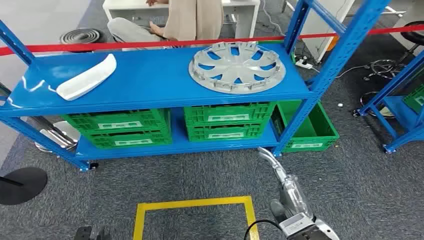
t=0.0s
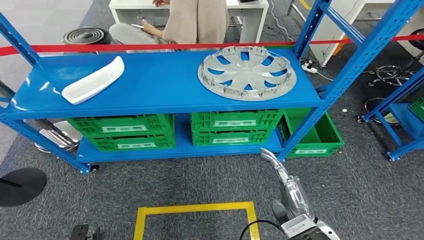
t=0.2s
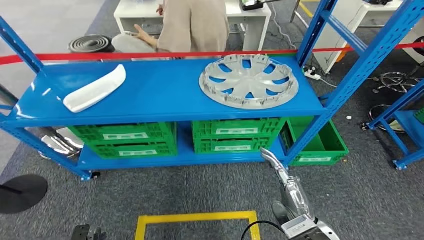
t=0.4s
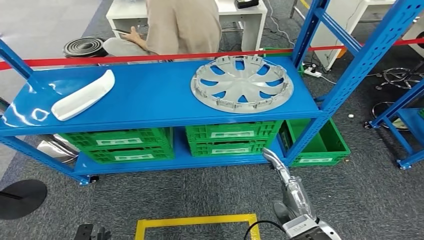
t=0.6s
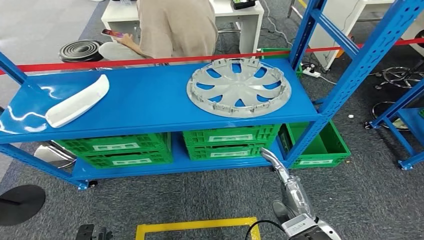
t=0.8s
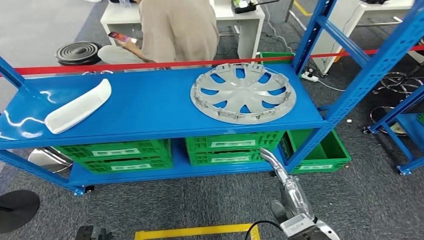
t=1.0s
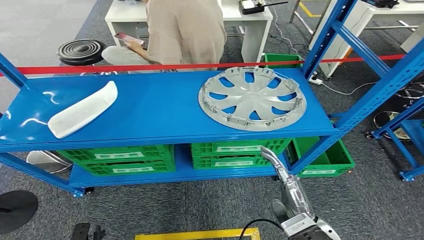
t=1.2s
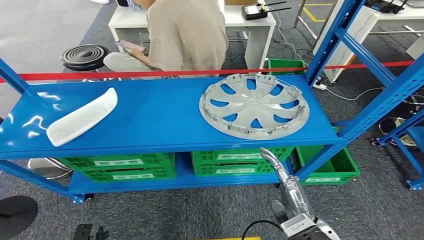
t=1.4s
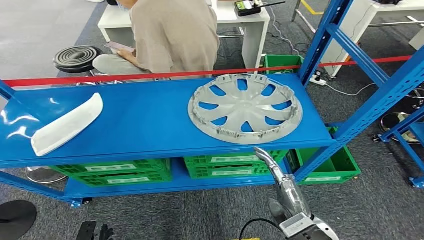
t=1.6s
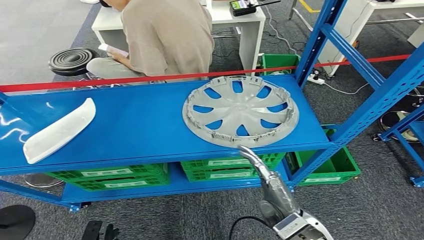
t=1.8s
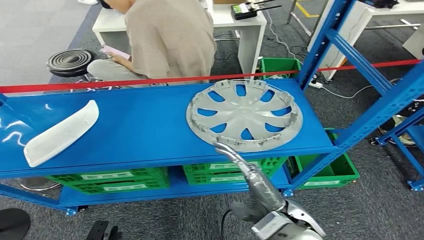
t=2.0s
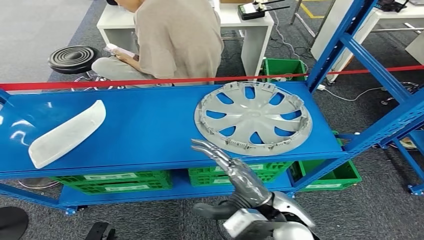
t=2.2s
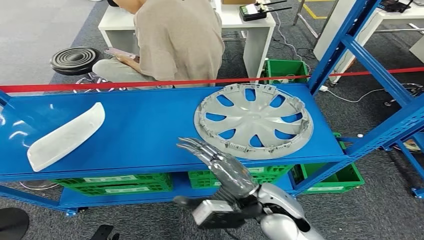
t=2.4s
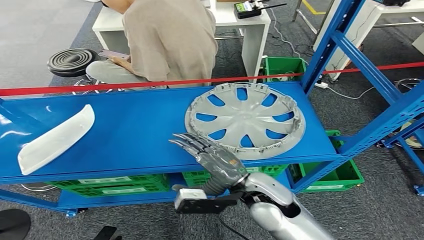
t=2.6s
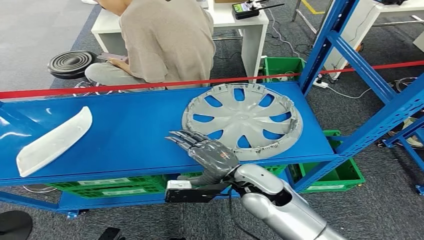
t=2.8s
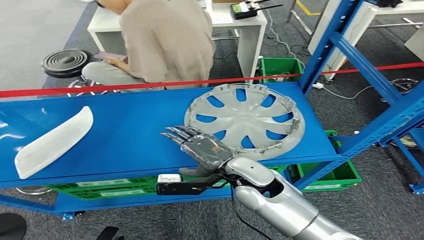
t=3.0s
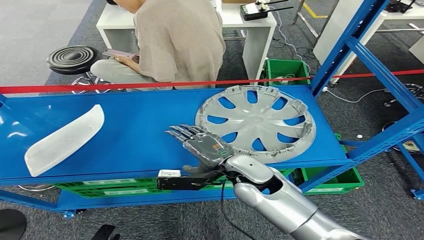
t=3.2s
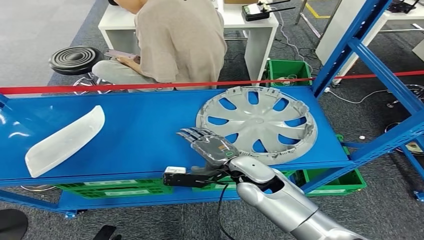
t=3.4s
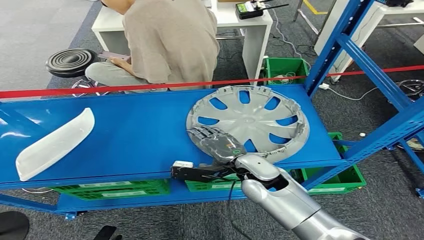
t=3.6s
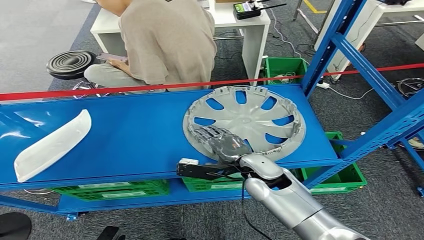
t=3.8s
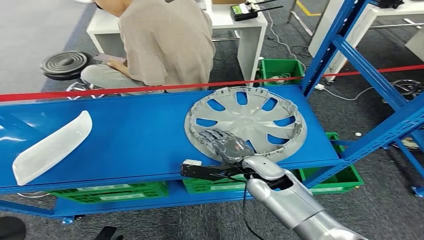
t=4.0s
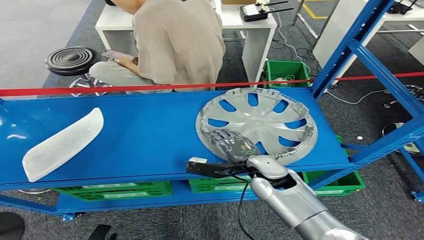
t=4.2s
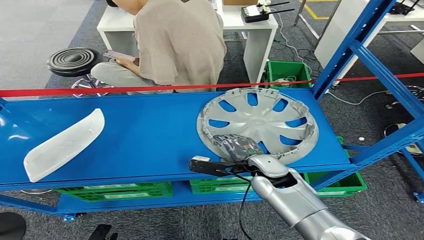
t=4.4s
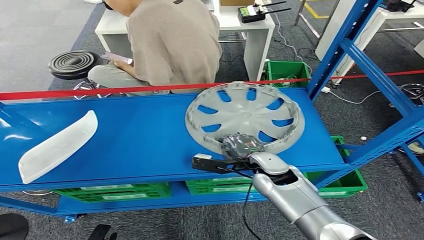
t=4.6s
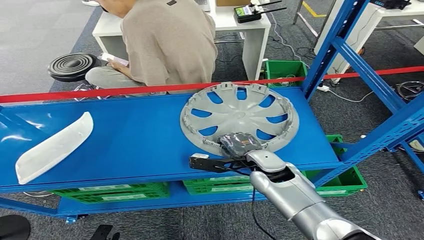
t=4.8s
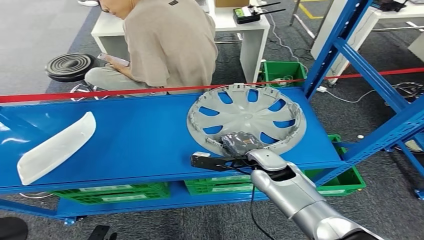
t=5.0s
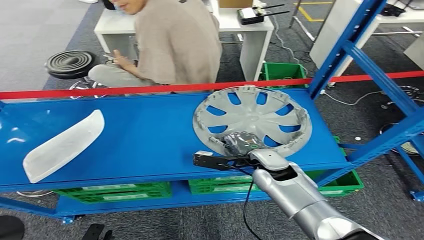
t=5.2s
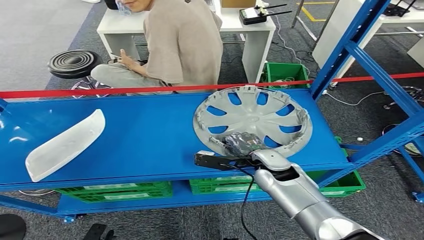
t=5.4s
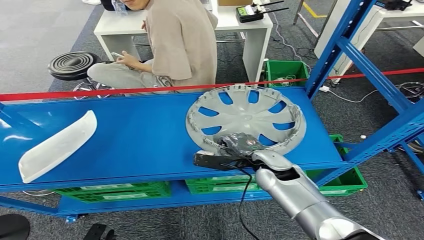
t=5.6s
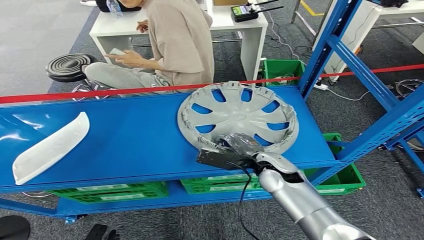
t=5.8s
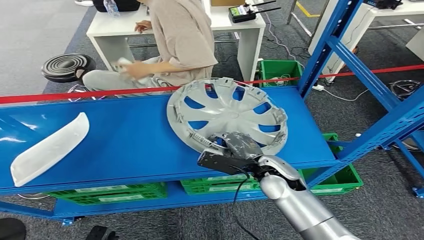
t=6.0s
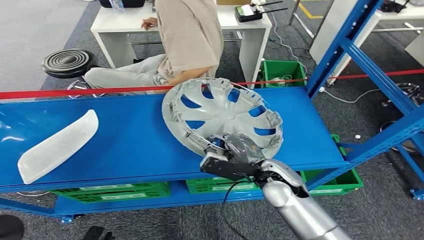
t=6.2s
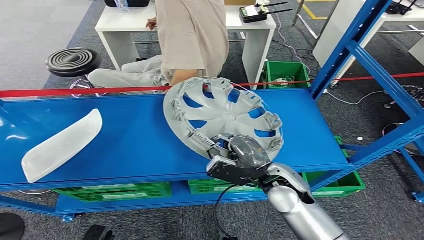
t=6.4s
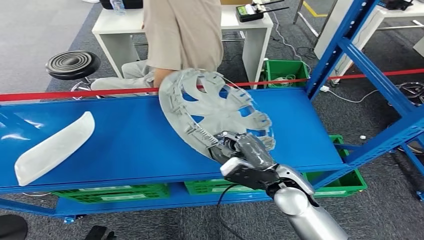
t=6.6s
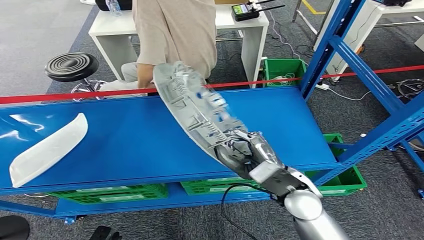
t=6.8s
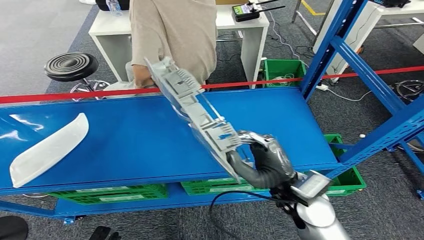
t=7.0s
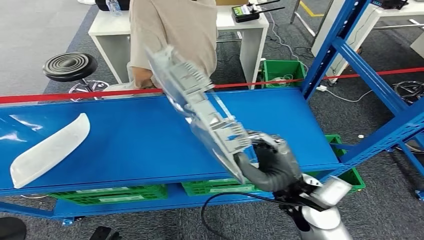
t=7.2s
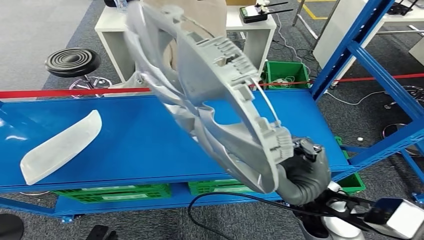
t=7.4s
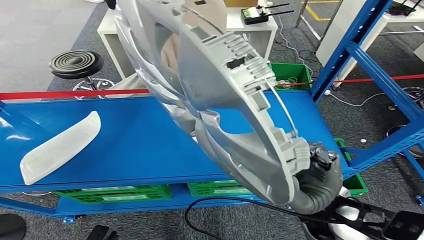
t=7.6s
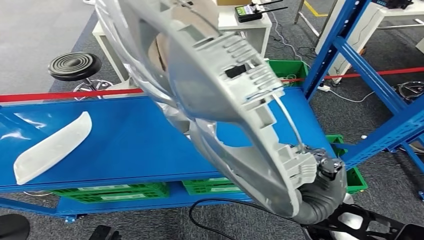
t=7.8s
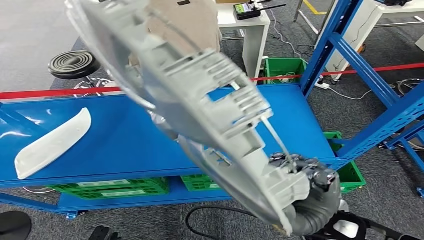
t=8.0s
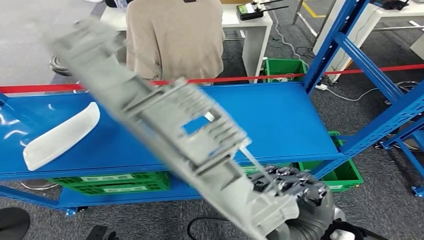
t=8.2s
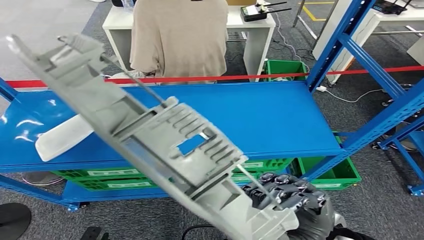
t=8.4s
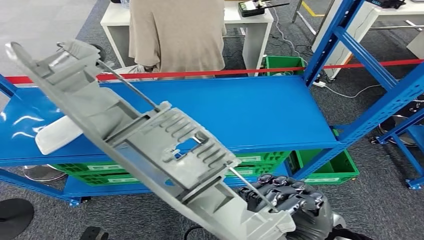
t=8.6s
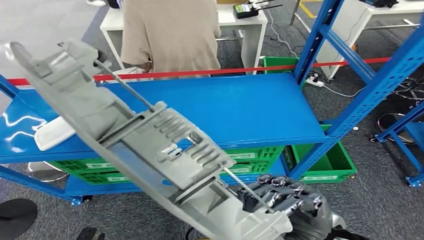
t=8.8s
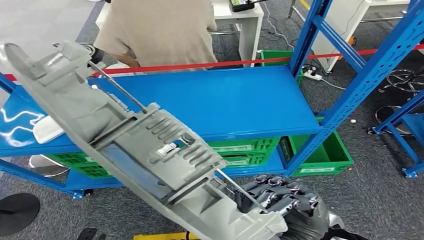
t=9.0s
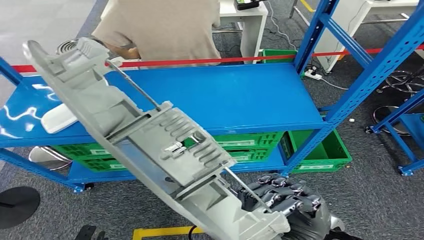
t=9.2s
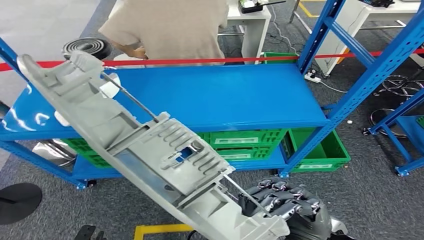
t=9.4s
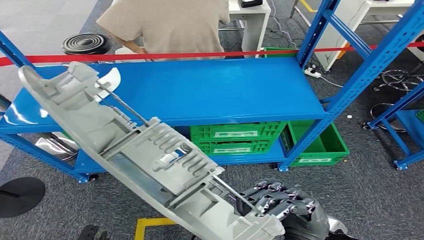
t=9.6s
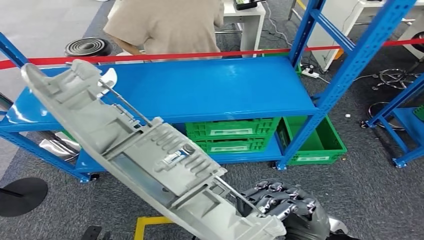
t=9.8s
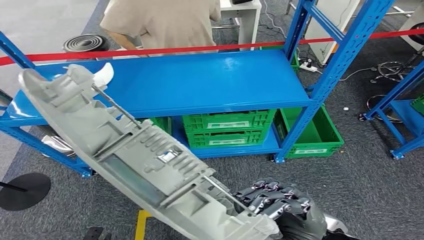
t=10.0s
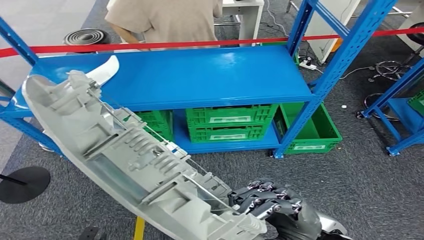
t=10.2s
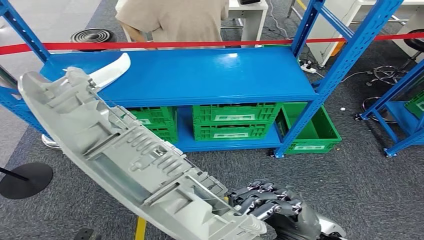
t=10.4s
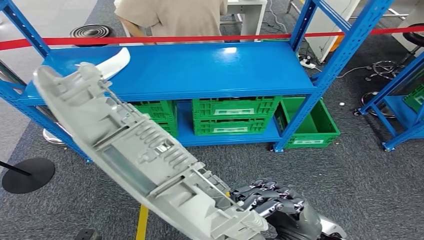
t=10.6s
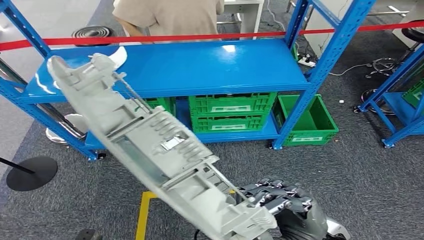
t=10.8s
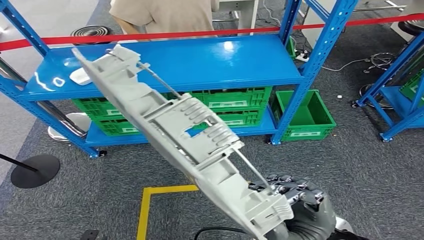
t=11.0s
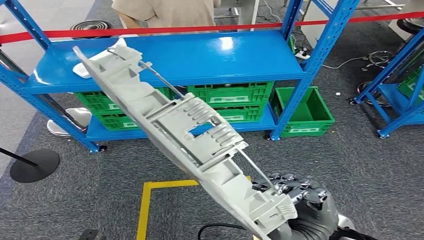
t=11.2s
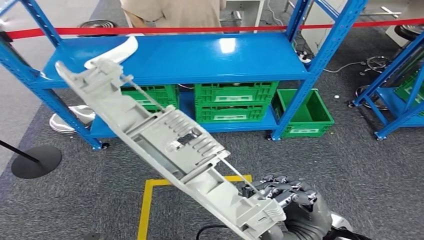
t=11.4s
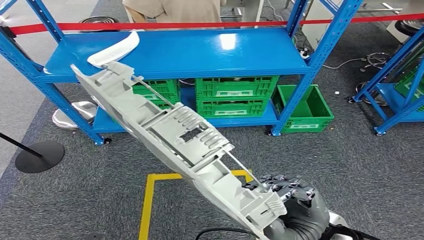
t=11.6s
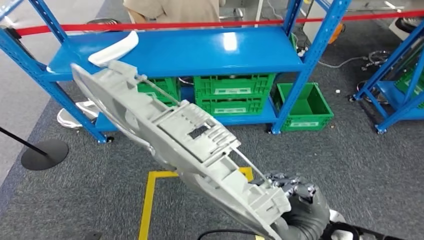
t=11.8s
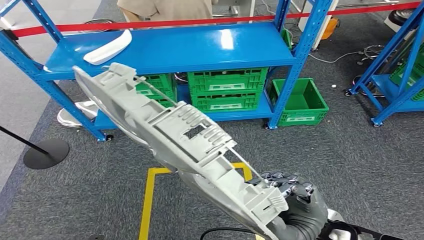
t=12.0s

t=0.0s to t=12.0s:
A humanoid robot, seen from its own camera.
Step, t=0.0s to t=7.4s: Pick up the small component from the shelf.

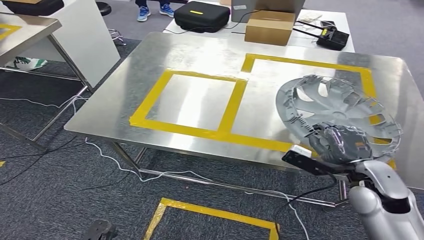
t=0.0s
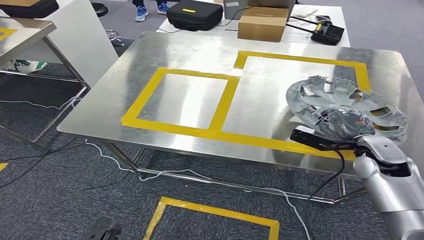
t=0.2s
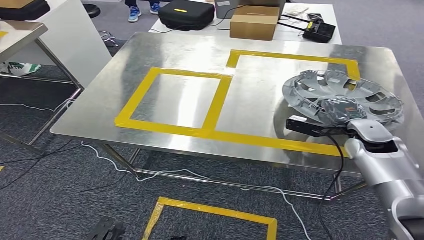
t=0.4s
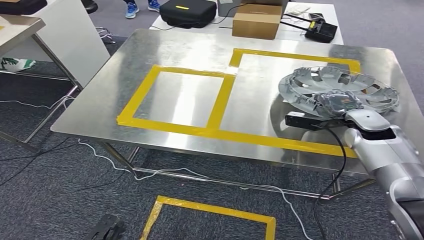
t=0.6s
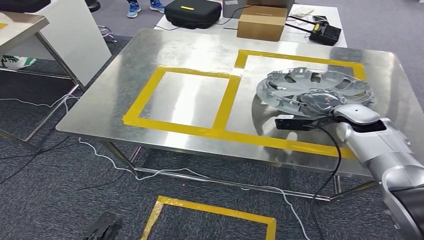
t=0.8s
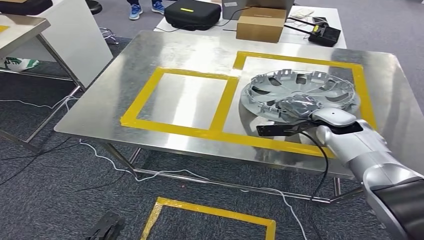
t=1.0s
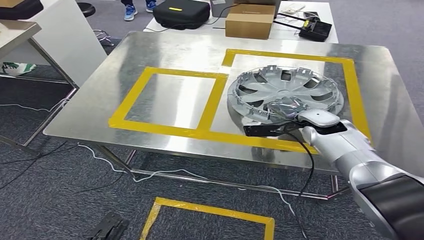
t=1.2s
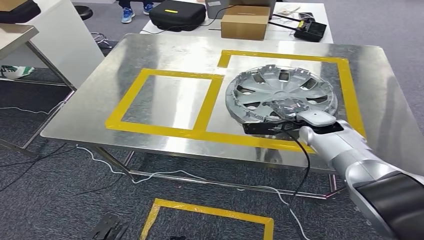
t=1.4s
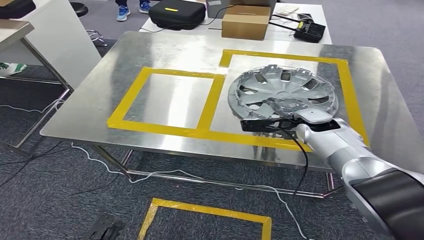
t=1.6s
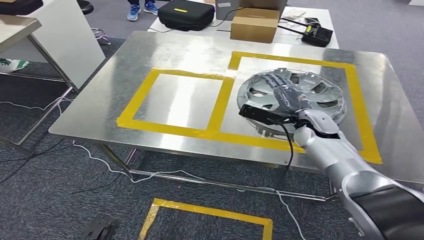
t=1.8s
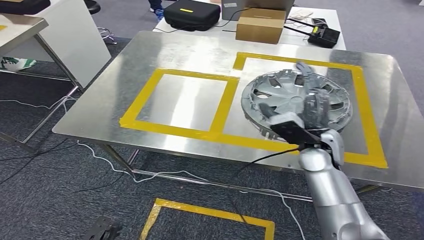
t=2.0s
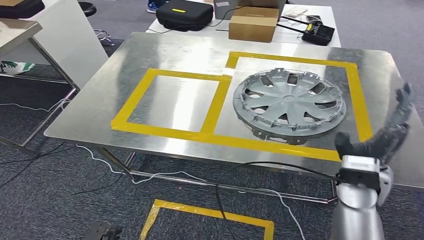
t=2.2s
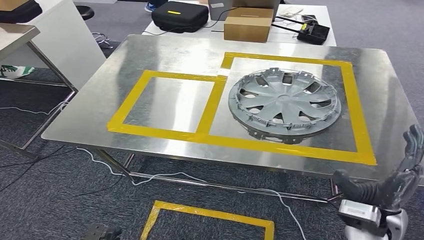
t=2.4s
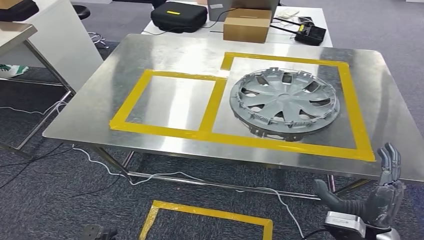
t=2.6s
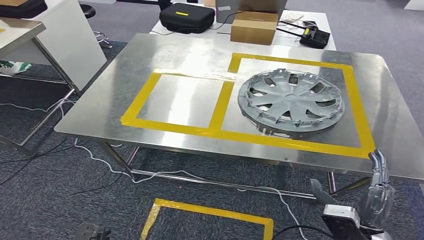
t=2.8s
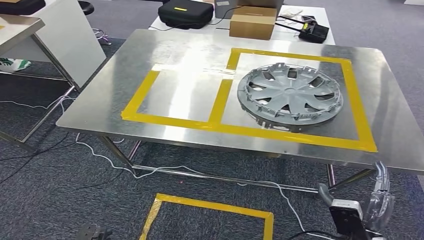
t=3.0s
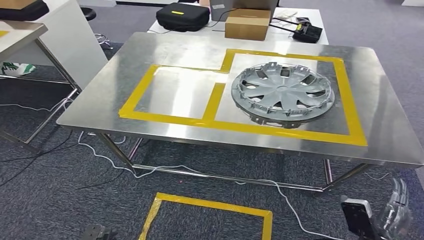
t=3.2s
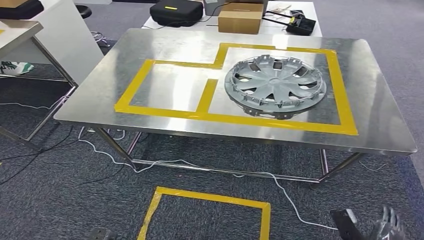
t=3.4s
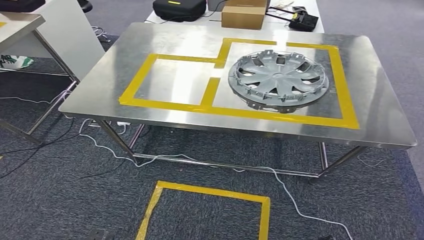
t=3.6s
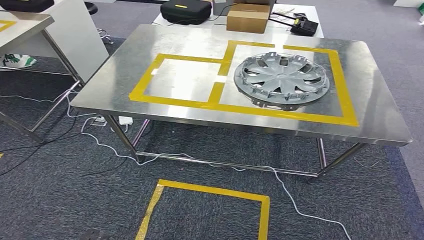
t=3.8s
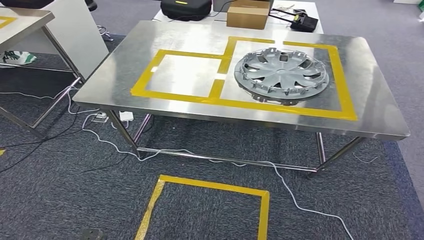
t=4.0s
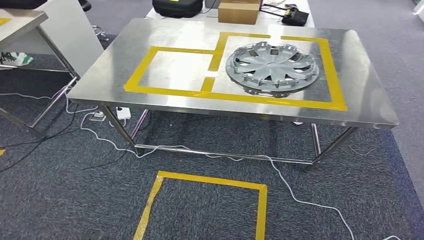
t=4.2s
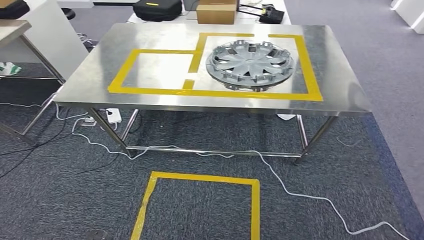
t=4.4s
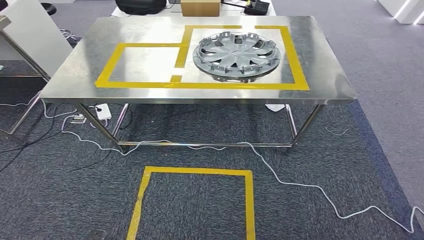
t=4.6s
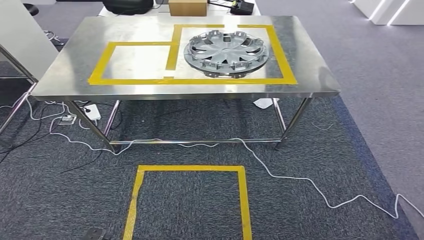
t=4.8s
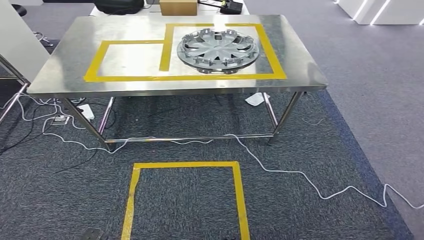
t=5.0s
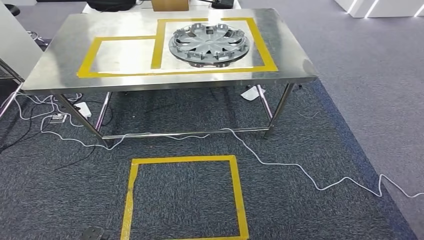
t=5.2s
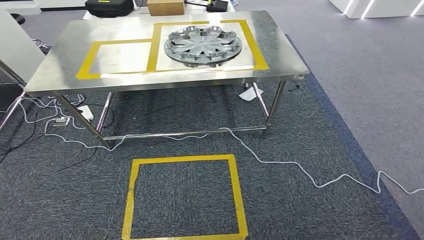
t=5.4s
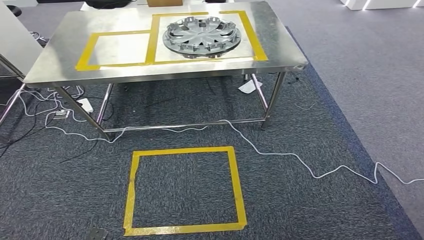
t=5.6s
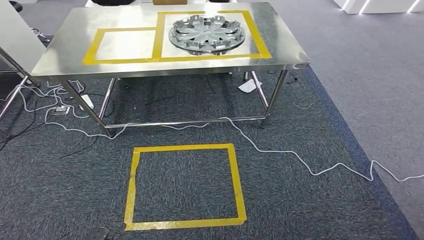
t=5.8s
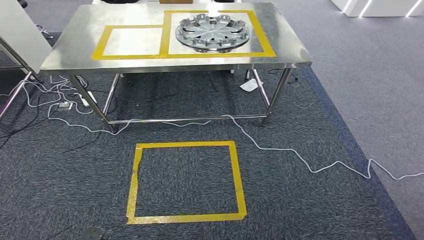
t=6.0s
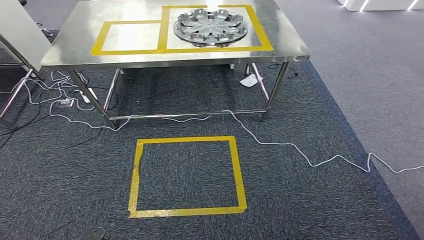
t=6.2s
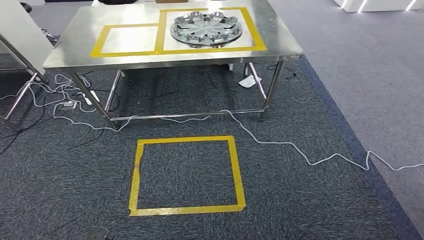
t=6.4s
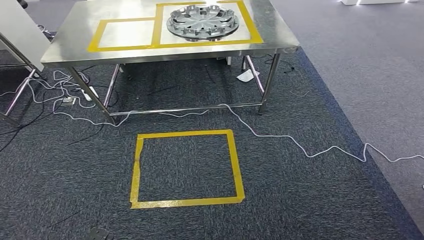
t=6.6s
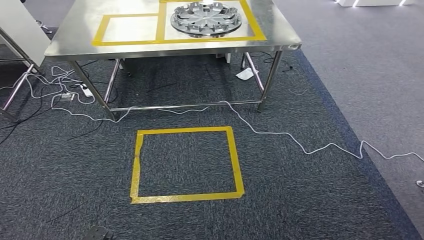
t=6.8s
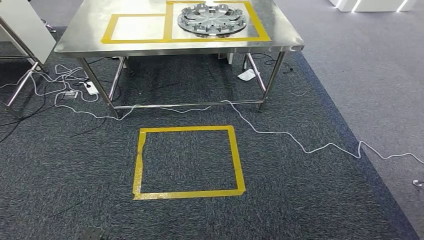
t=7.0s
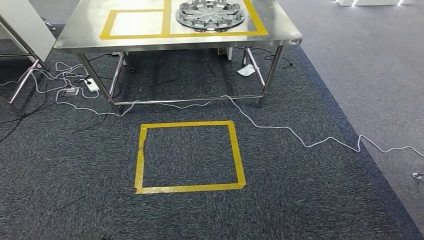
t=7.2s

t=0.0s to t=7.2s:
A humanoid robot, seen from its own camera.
Step, t=0.4s to t=3.6s: Insert the small component into the corresponding slot on the workbench.
